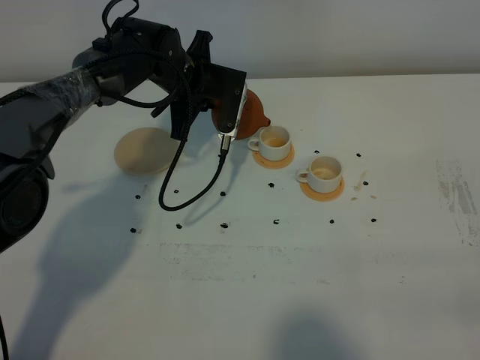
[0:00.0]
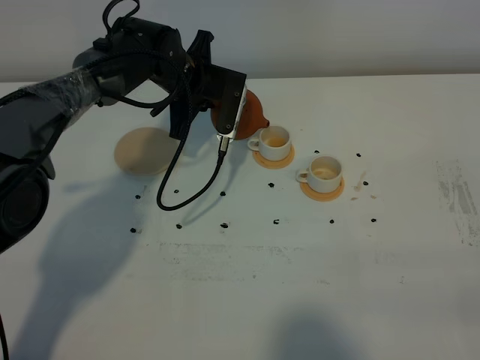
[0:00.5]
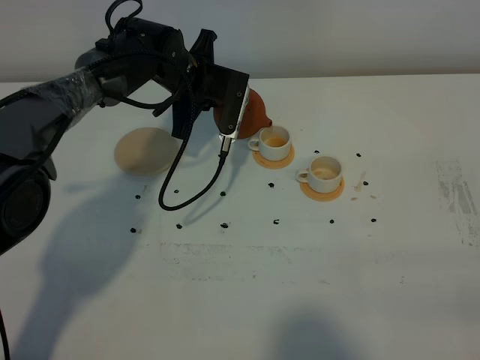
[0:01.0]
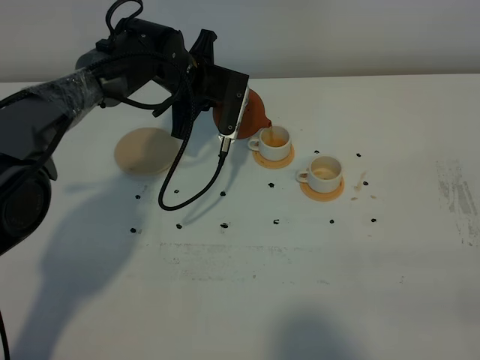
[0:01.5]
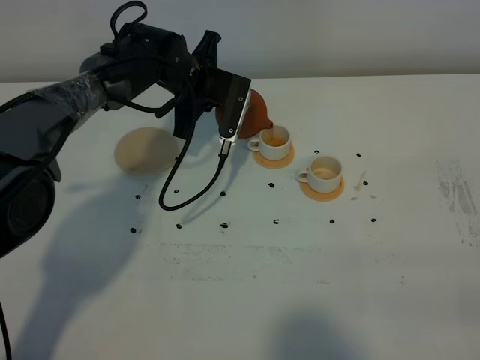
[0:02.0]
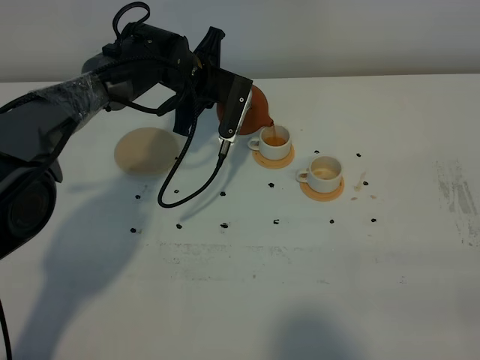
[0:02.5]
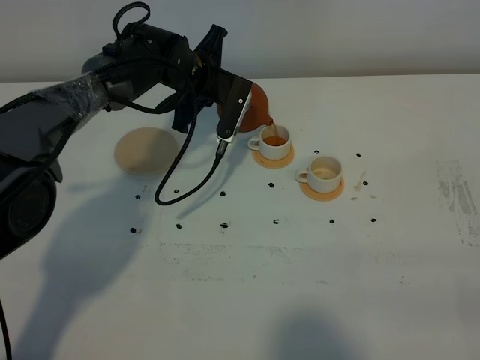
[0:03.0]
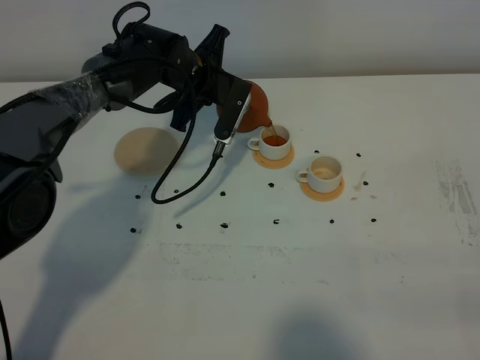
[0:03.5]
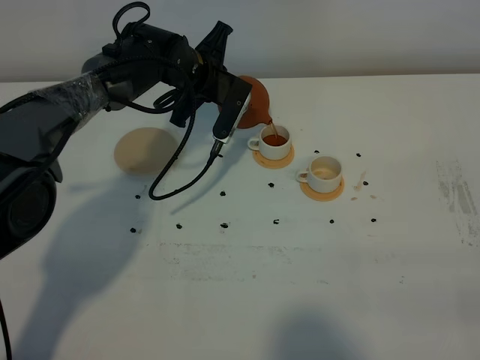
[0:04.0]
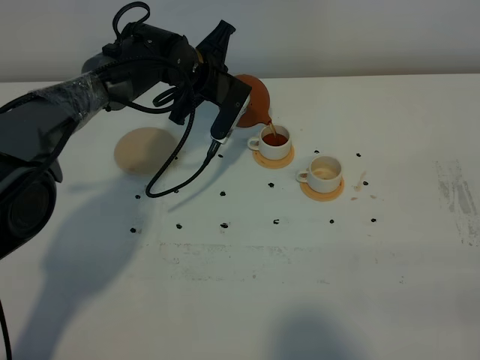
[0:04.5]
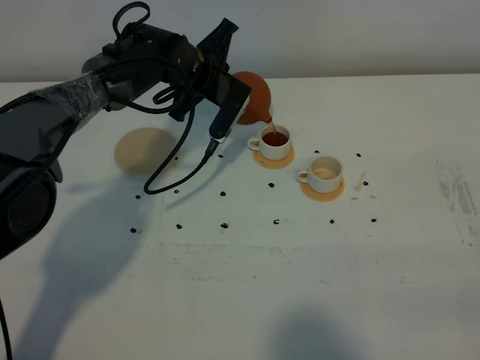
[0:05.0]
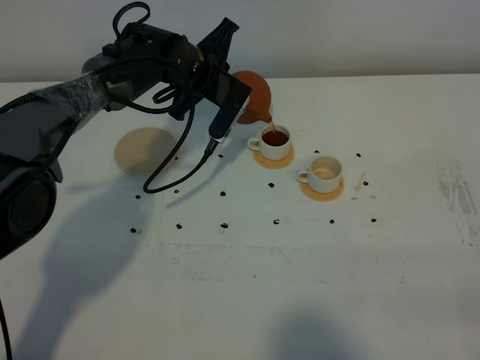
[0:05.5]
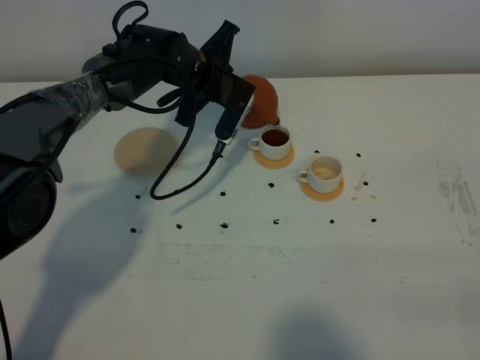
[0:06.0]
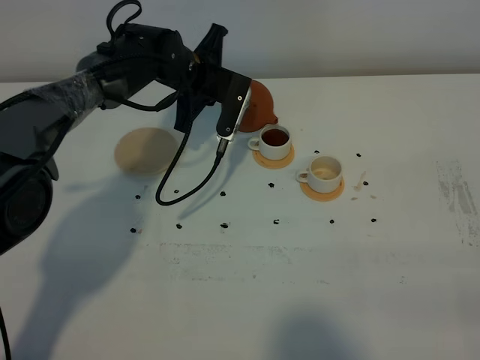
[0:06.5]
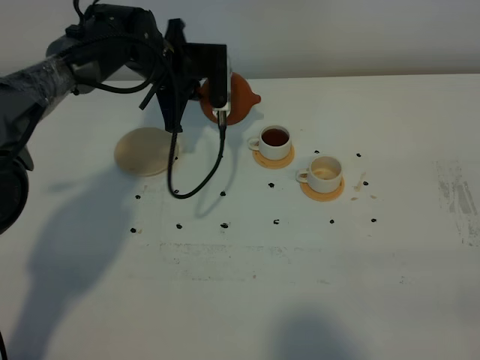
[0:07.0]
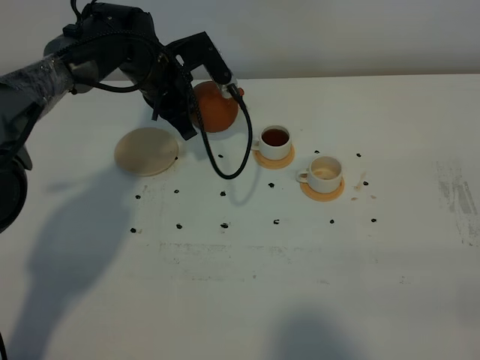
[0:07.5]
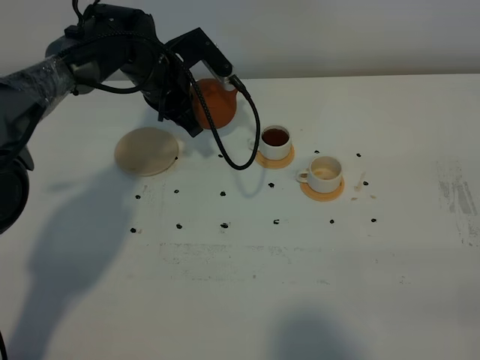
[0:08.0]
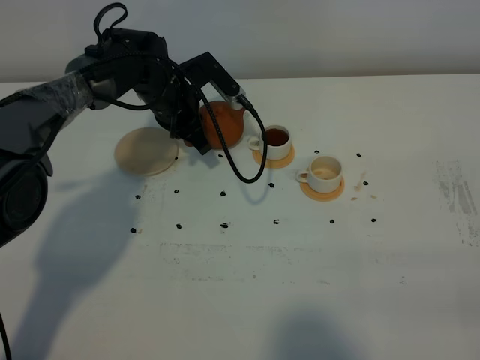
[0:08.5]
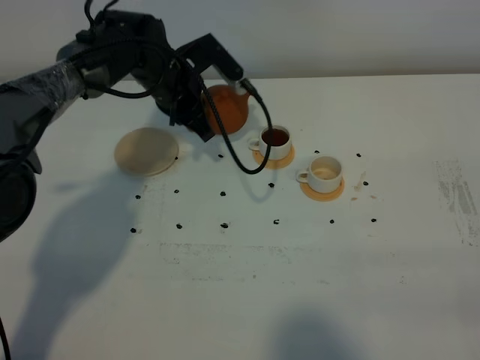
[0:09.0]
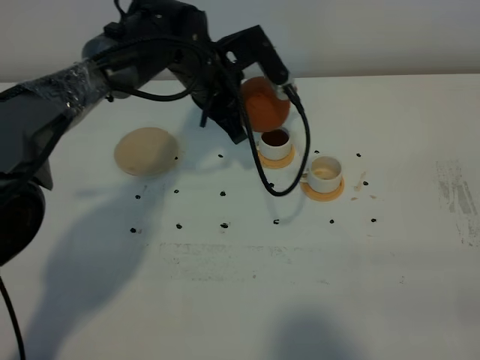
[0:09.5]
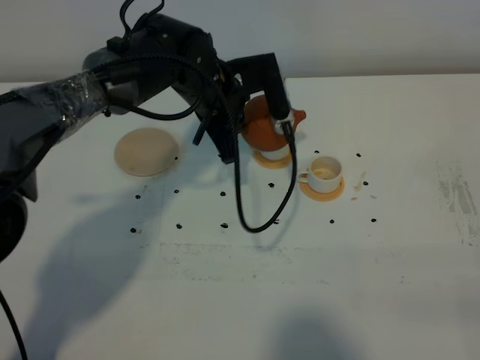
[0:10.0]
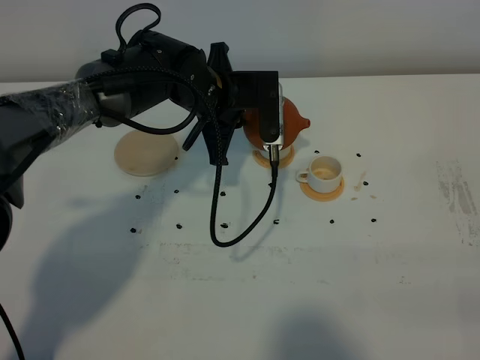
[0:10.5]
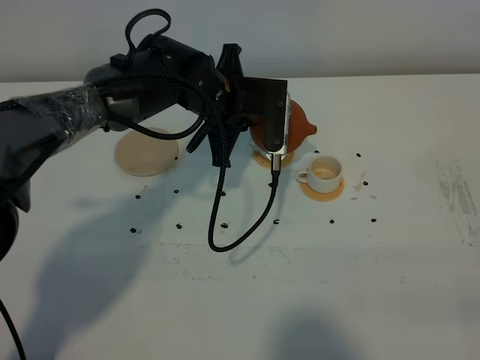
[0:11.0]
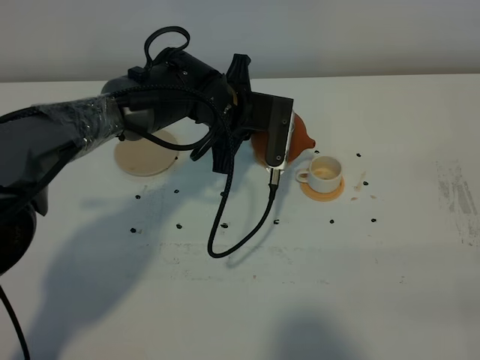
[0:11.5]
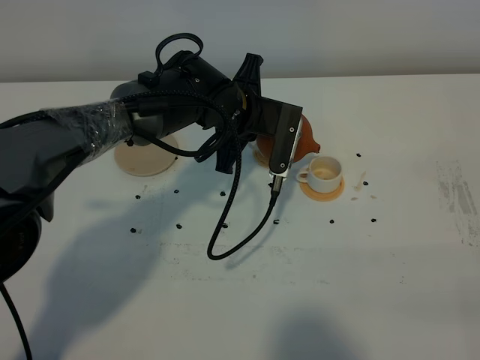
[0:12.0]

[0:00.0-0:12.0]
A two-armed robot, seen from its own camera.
Task of the whole recording: grasp the brown teapot and pour the tea into the two white teacups one by one, put the brown teapot back in its original place.
0:00.0 to 0:04.0: The grippers move only a little.
0:04.0 to 0:06.0: The grippers stay close to where they were, moving slightly.
0:06.0 to 0:08.0: The left gripper changes place by about 5 cm.
0:08.0 to 0:10.0: The left gripper shifts some 10 cm to the right and backward.

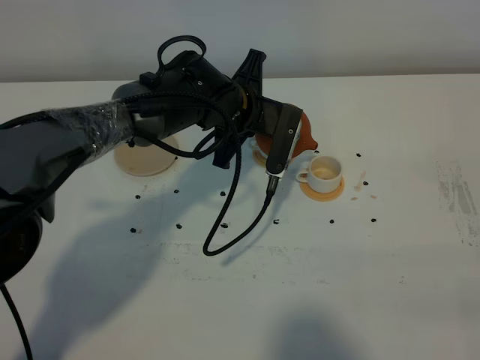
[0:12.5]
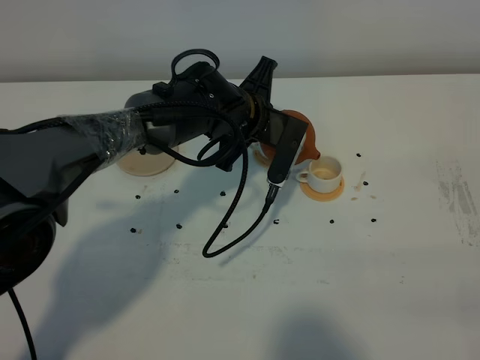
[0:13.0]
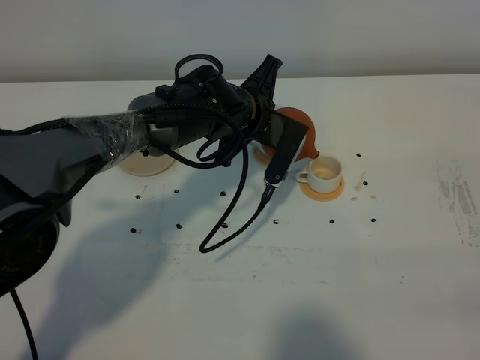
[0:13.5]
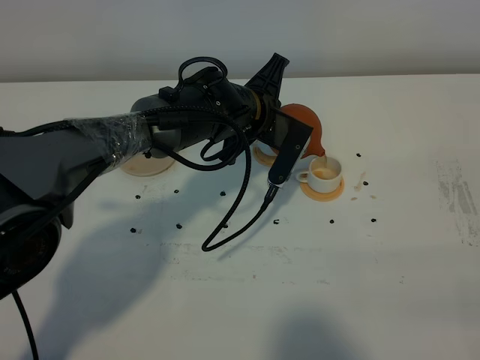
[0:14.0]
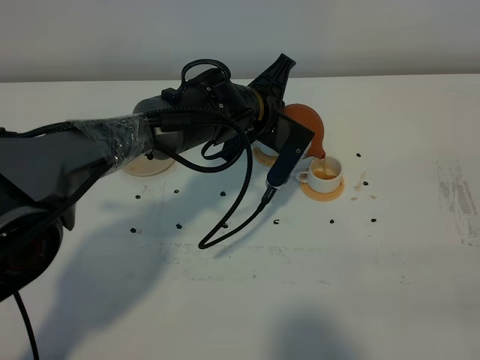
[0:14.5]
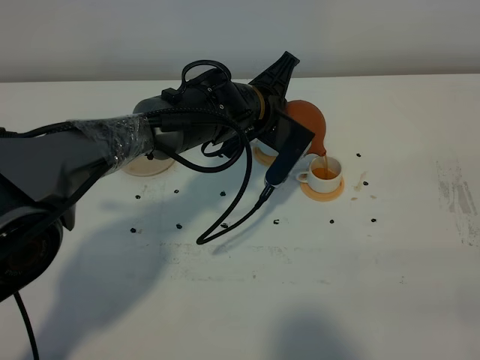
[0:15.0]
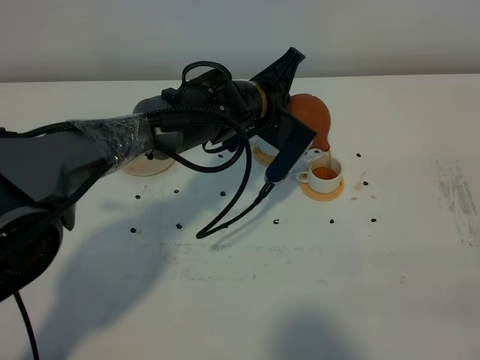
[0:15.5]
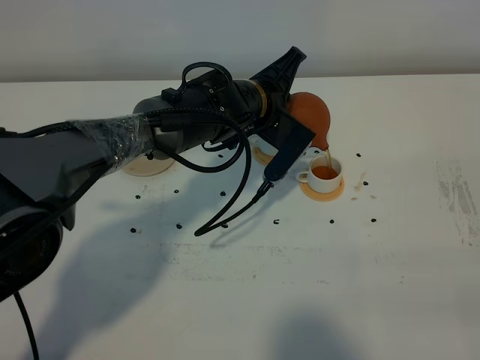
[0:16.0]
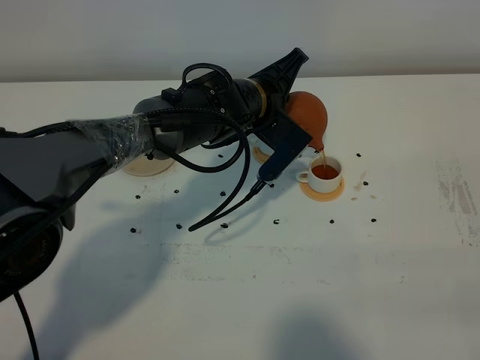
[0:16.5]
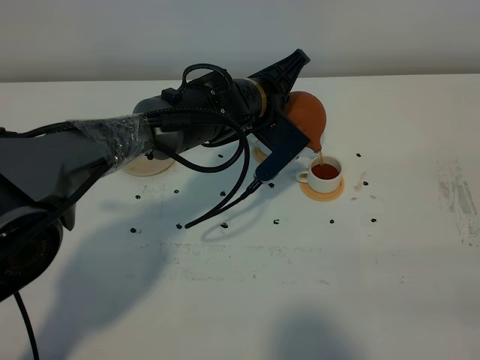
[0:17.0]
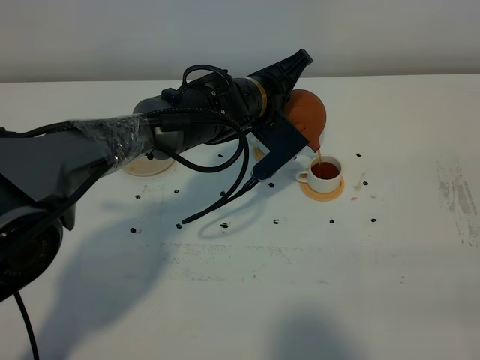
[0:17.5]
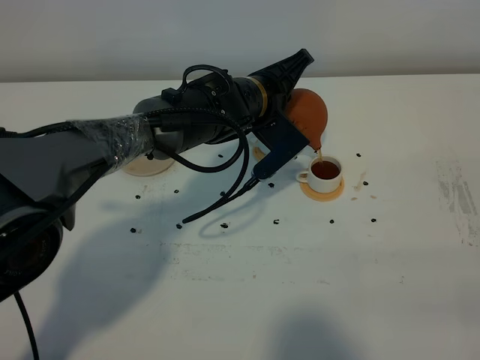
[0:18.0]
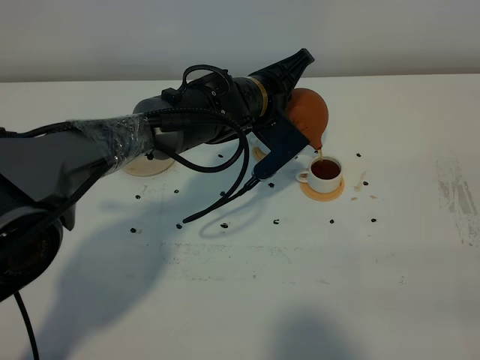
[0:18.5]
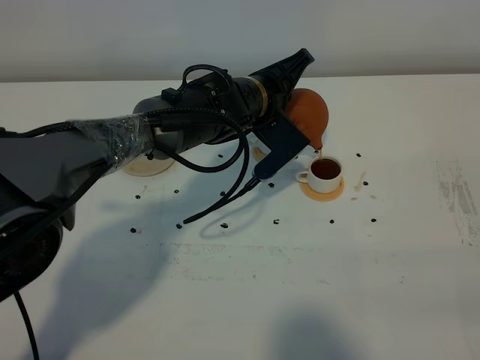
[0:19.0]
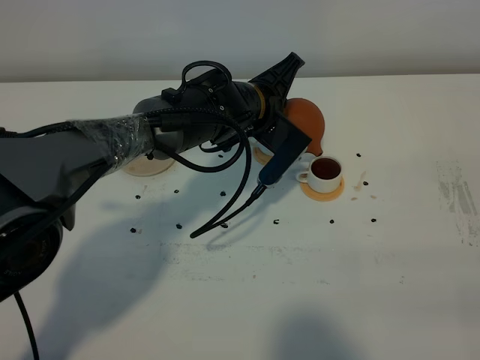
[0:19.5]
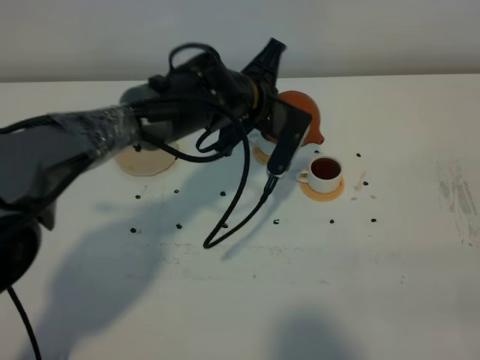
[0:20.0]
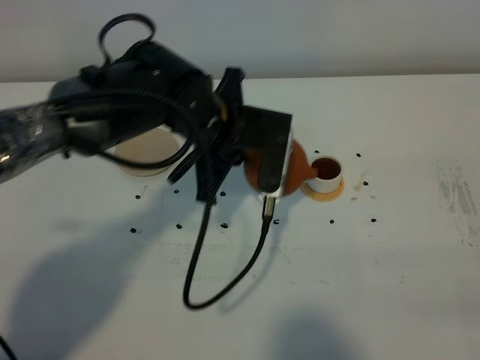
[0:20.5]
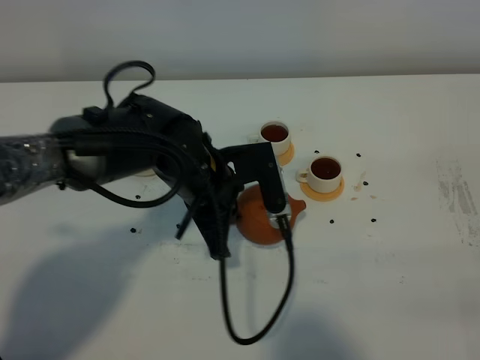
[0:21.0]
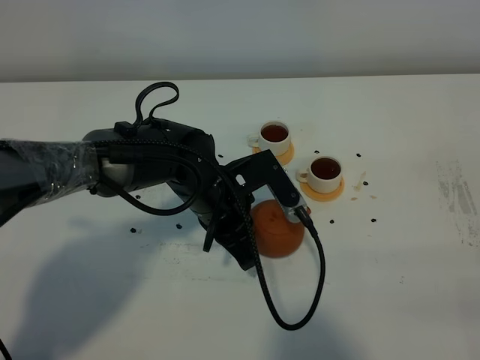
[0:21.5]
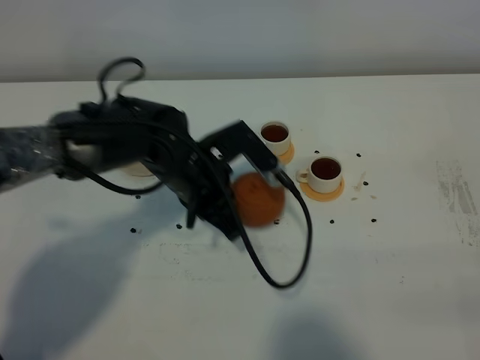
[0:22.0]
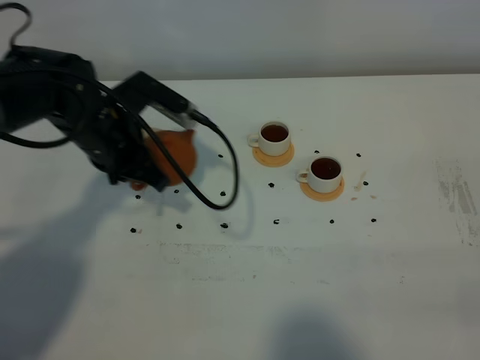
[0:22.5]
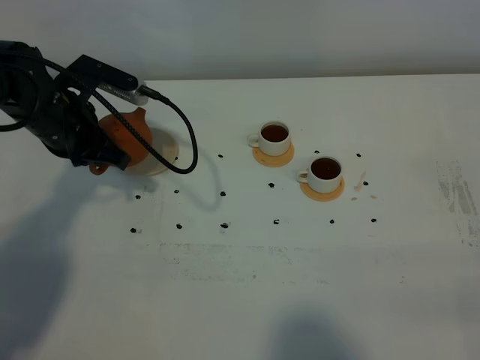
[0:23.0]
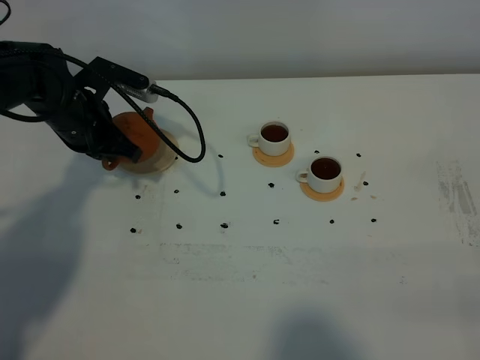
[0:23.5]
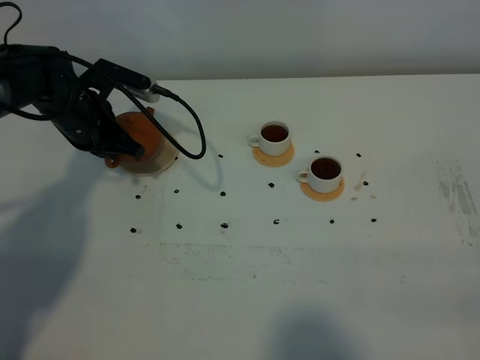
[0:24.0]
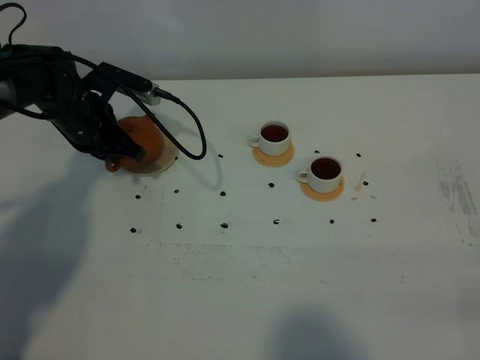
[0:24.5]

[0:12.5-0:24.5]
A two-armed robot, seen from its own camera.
Task of the whole recording: grasp the brown teapot and pour the tea into the two white teacups one by one, put the brown teapot back in its original place.
Step, 0:12.5 to 0:19.5: Pour tea into the teacup with the left gripper.
0:12.5 to 0:14.5: The grippers move only a little.
0:14.5 to 0:18.5: The grippers move only a little.
0:18.5 to 0:20.5: The left gripper travels backward and to the left by some 10 cm.
0:20.5 to 0:22.5: The left gripper is displaced to the left by approximately 15 cm.
0:22.5 to 0:24.5: The left gripper shifts some 10 cm forward, downward and to the left.

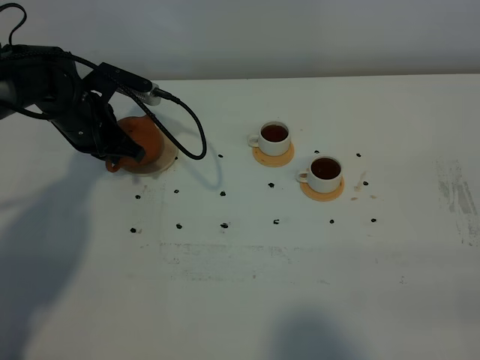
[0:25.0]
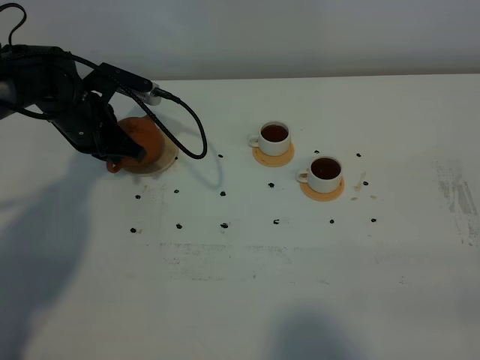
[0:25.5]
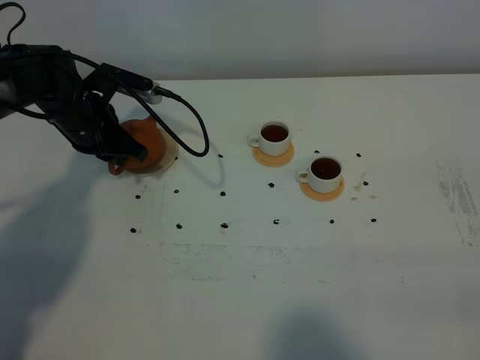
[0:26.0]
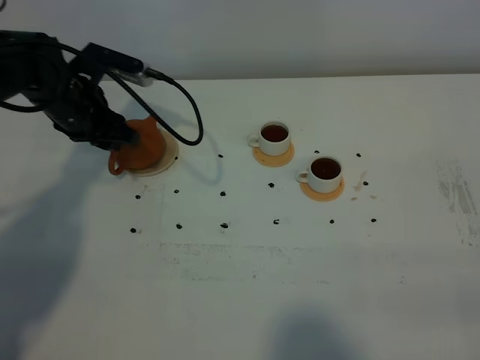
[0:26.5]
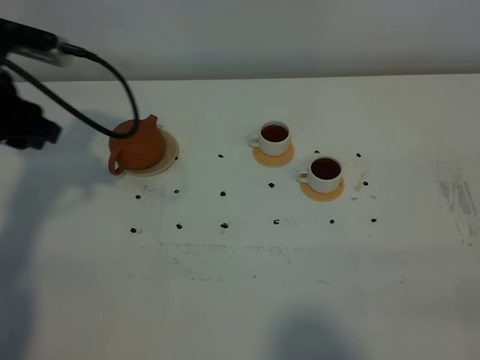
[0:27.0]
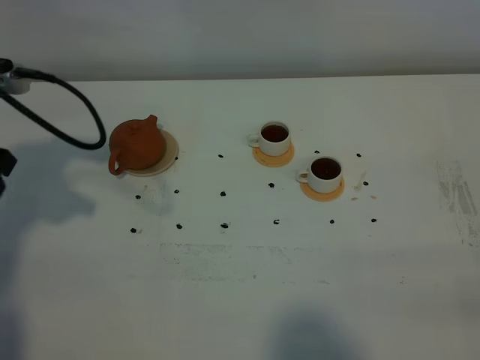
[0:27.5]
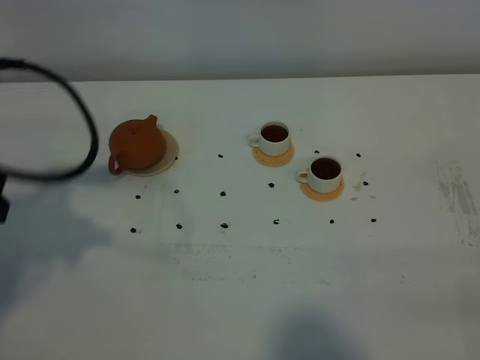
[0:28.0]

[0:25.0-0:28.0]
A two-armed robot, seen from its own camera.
Task of the whole recording: grasp the brown teapot and pour the tea into the two white teacups one by one, put the brown teapot back in its original place.
0:25.0 to 0:26.5: The left gripper opens its fingers.
0:26.5 to 0:28.0: The left gripper heads backward and upward, covering some 25 cm.
